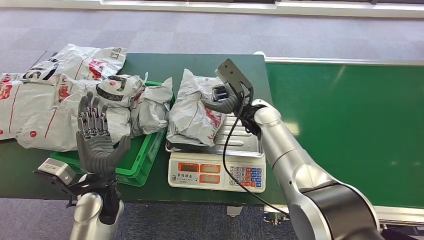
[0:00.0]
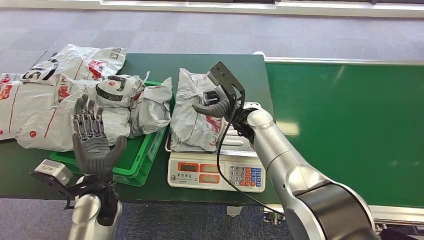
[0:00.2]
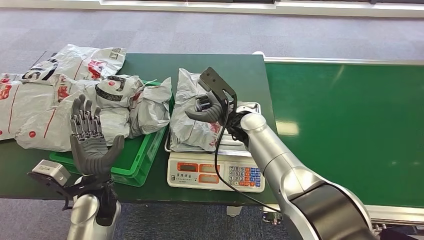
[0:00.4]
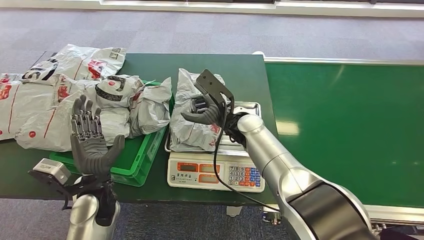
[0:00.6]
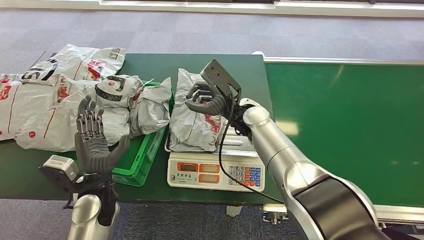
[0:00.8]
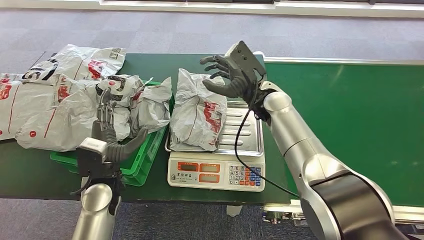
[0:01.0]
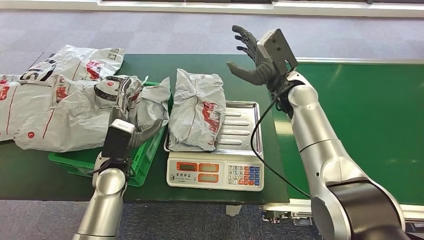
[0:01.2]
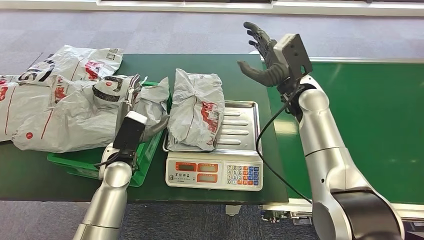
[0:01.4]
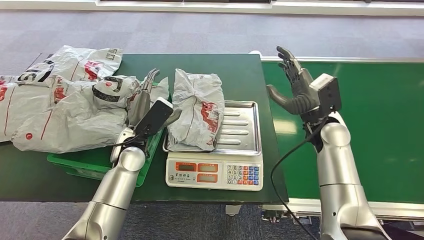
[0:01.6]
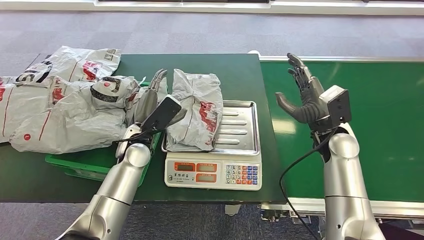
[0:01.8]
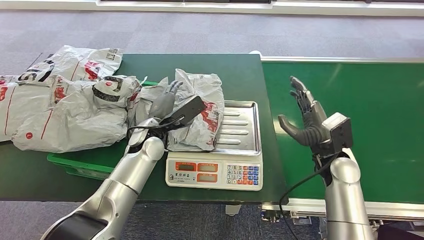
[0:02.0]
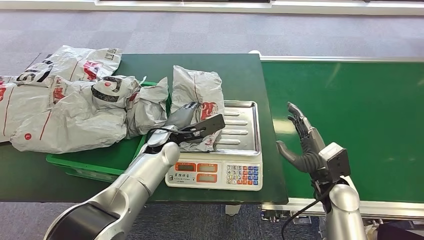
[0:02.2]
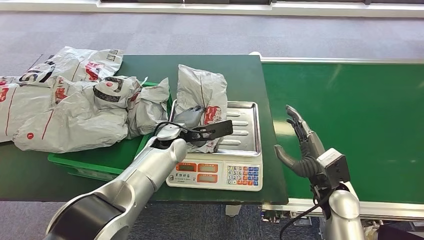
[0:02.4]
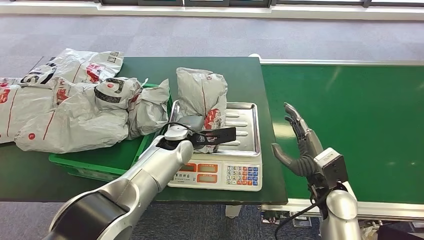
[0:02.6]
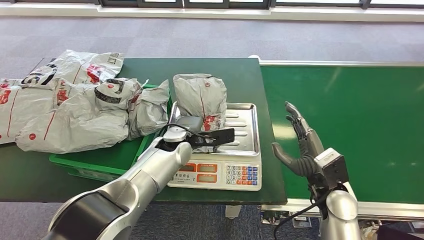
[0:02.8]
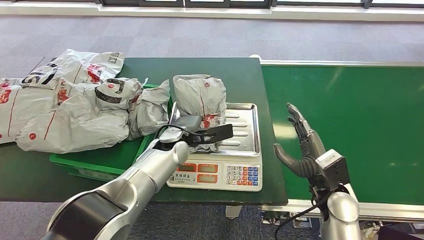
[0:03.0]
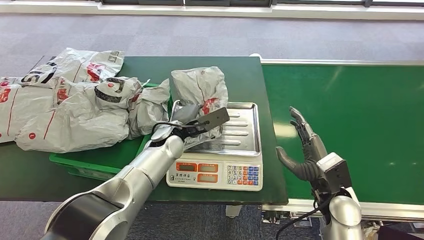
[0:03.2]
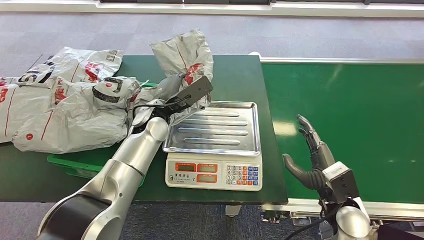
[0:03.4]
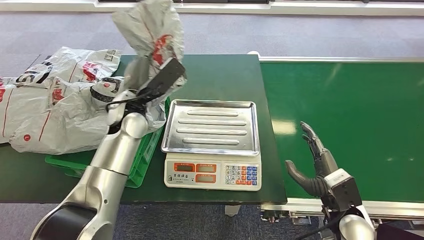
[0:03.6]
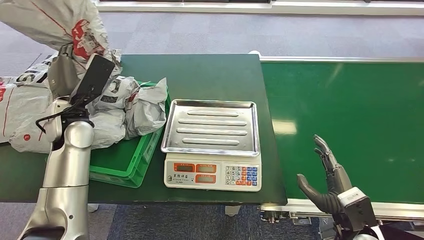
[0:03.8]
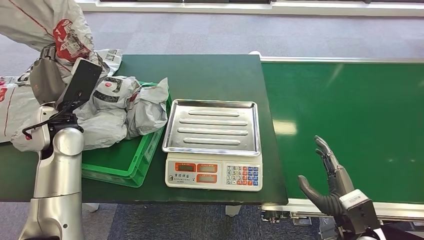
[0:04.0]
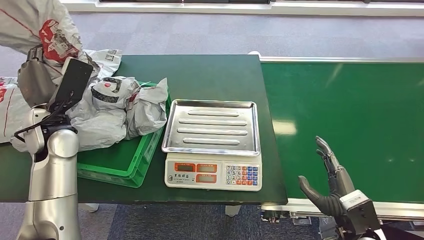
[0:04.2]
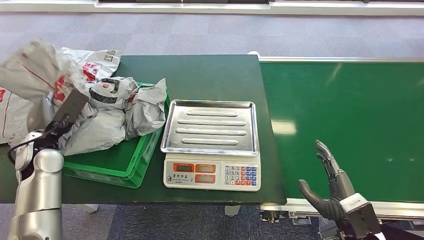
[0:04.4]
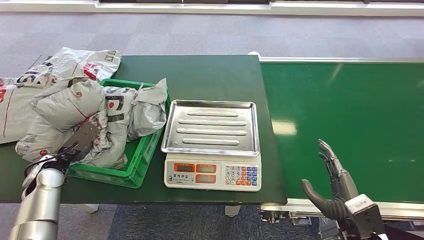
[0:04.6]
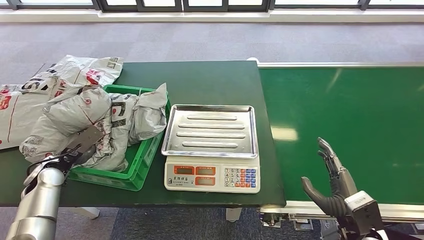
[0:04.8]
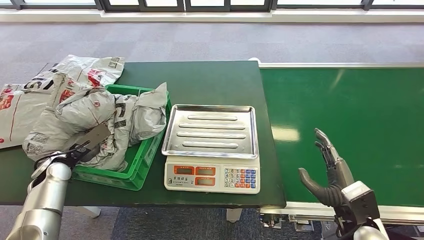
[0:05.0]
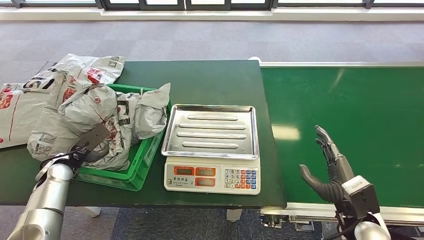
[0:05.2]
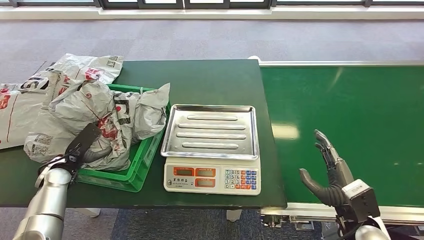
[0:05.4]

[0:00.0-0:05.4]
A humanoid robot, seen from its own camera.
Step, 0:01.2 to 0:03.8: Pick up the package from the inbound machine.
Step, 0:04.2 to 0:05.4: Place the package into the parcel locker.
